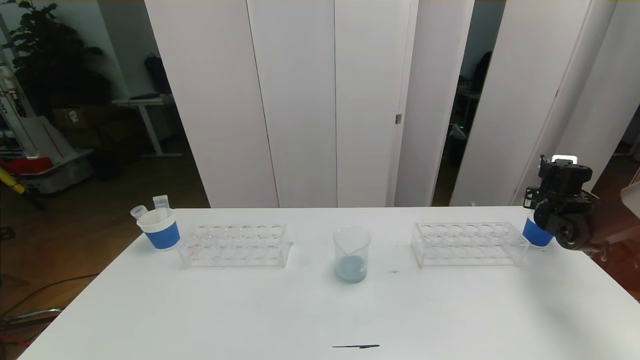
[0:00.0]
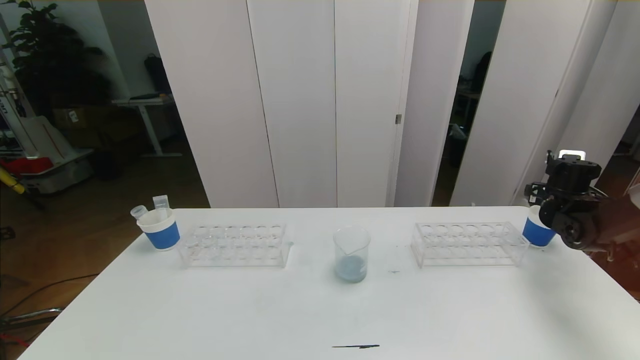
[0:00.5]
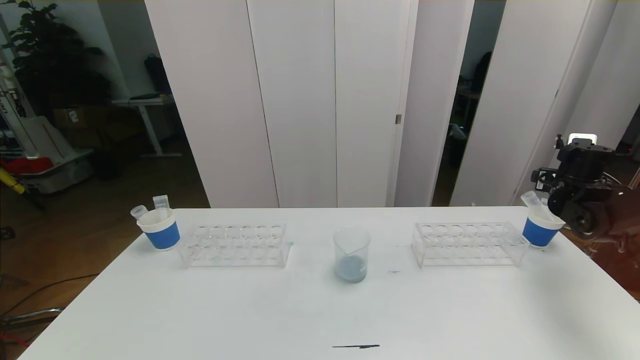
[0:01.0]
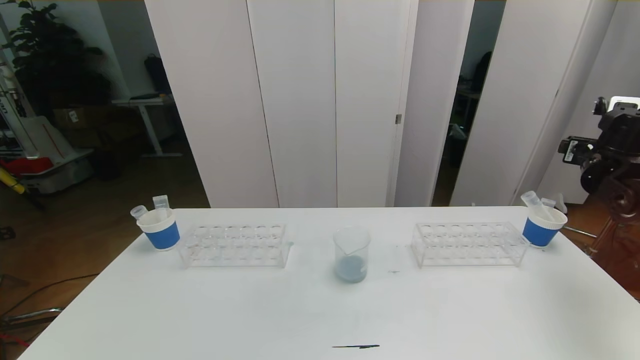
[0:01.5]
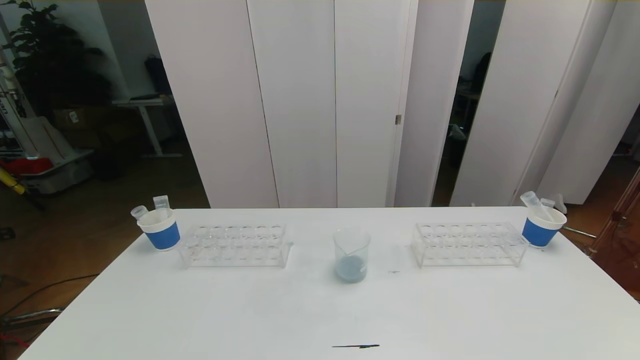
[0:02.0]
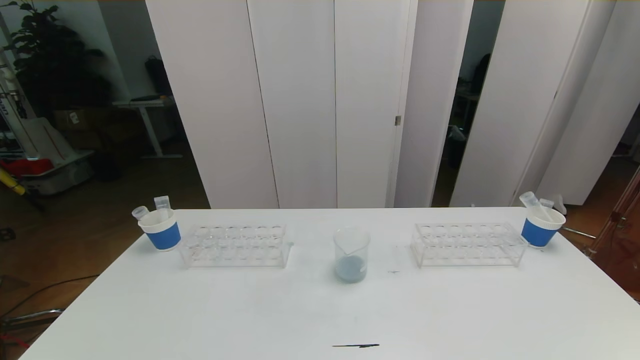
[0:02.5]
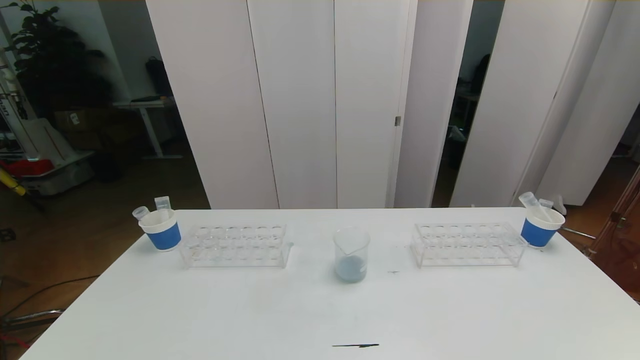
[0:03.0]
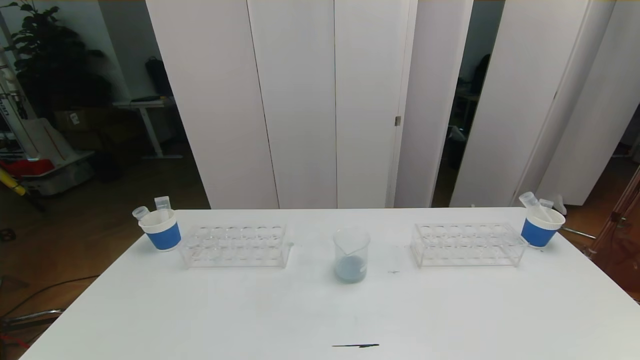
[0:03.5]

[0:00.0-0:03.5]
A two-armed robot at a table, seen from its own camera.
Task of the whole recording: pick up the test tube with red pigment the test tube with blue pigment and the test tube with white pigment by grippers and pour them into the beaker.
0:00.0 to 0:02.0: The right gripper heads upward and backward, covering about 35 cm, and opens up.
